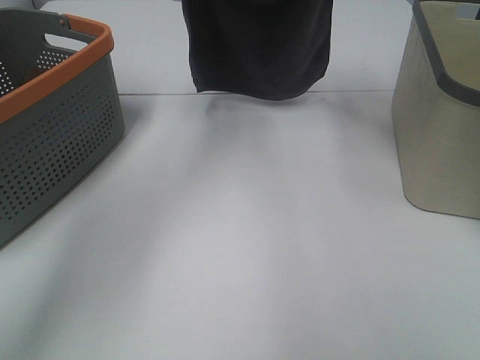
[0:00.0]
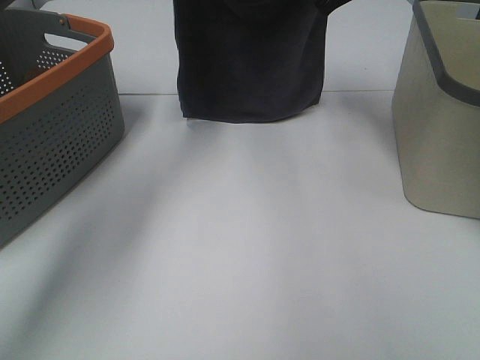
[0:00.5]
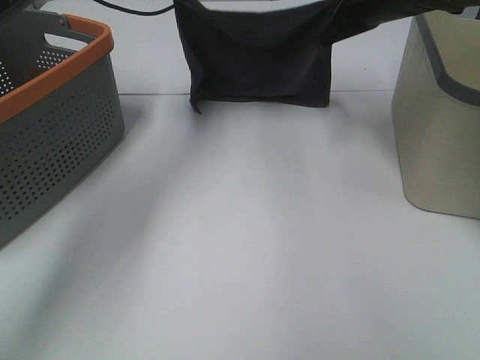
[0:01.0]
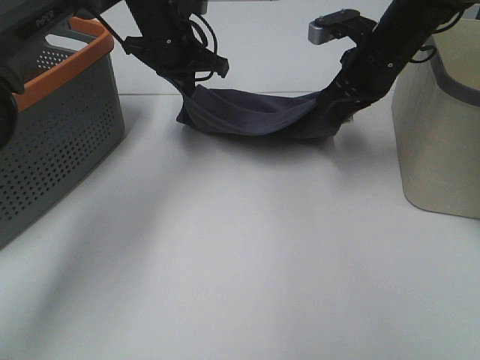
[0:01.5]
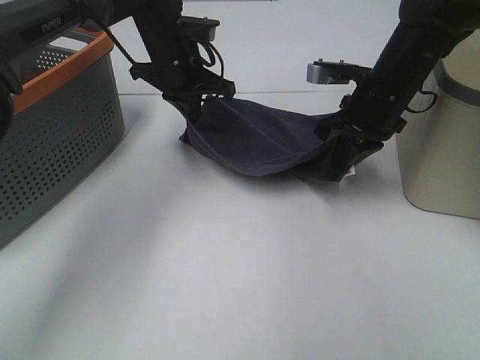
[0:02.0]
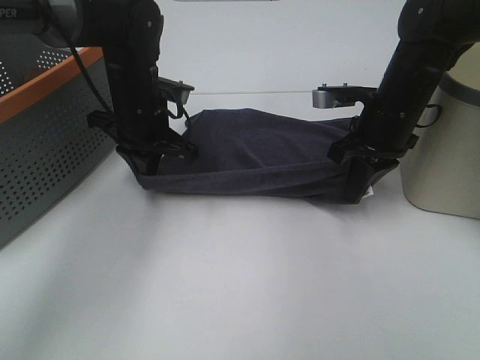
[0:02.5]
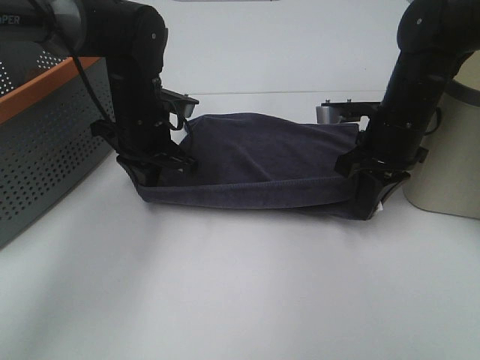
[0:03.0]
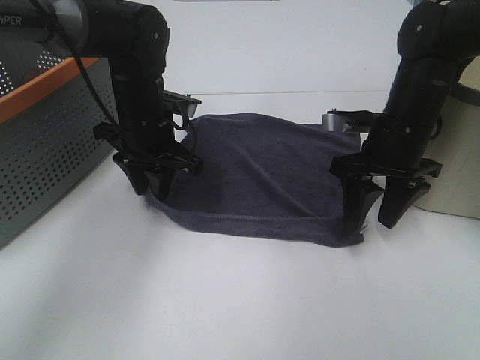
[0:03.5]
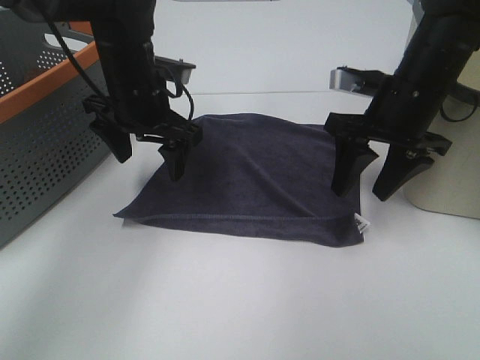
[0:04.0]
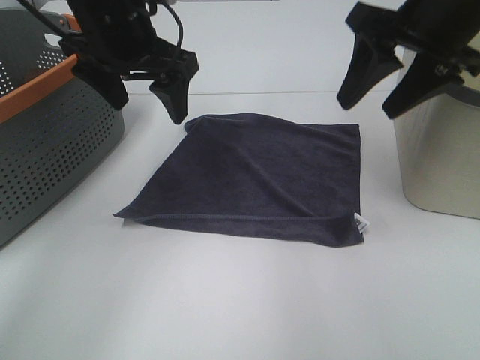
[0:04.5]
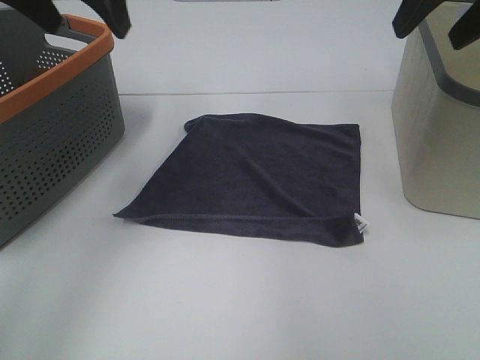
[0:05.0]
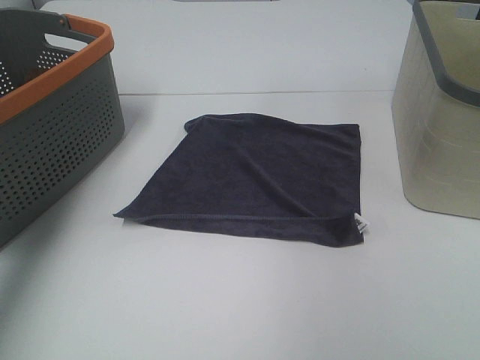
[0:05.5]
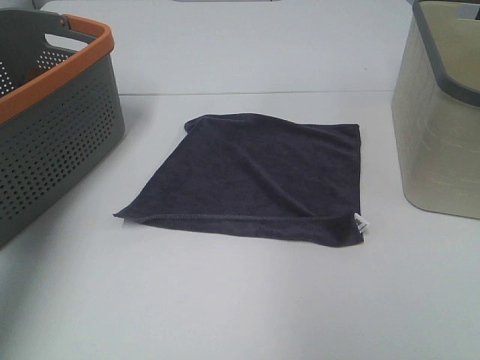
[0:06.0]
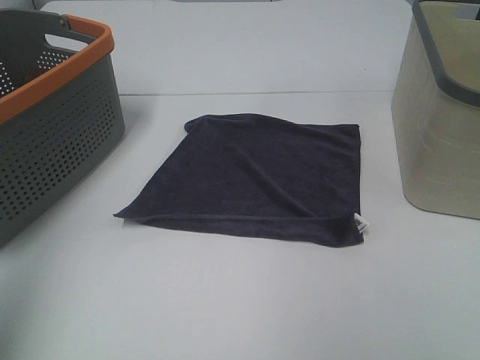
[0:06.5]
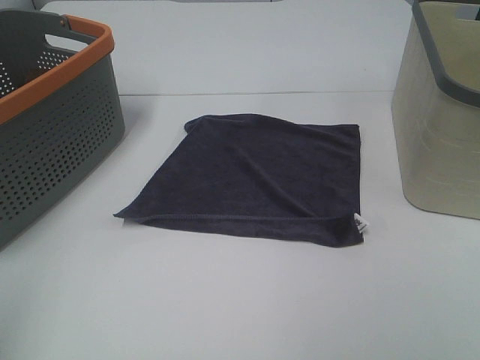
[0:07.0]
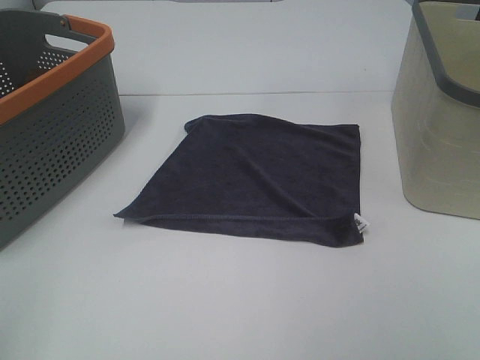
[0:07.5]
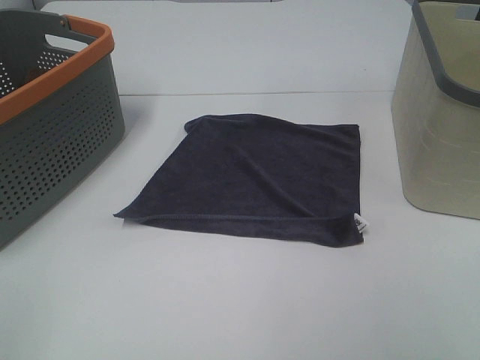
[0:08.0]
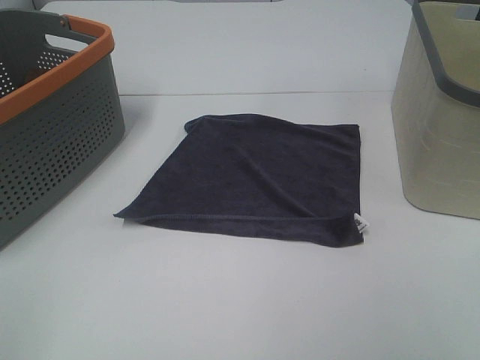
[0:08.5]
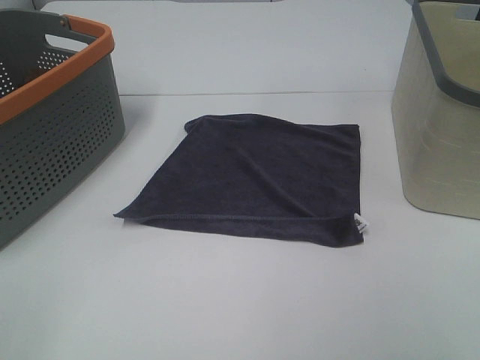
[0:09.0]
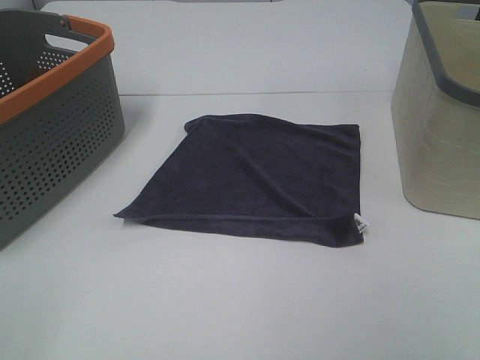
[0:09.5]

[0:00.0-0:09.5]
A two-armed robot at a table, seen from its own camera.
Task of the whole recording: Remove the towel and place it.
0:00.0 to 0:02.0: The right gripper shifts approximately 15 cm downward and backward, while the left gripper heads downward, covering approximately 15 cm.
0:02.0 to 0:04.0: The right gripper moves about 5 cm, and opens up. Meanwhile the left gripper goes roughly 10 cm backward, and opens up.
0:04.0 to 0:05.5: The right gripper is displaced upward and to the right by roughly 20 cm, while the left gripper shifts some 30 cm to the left and upward.
0:05.5 to 0:07.5: The left gripper heads backward, covering approximately 35 cm.

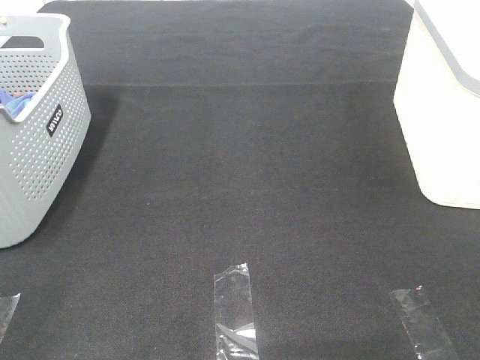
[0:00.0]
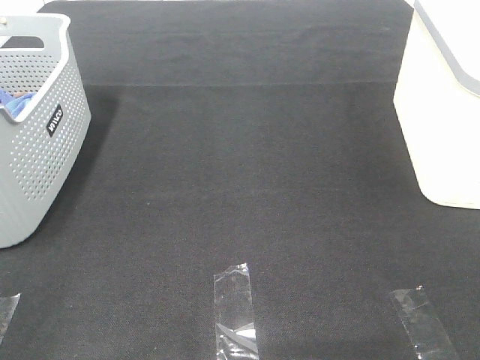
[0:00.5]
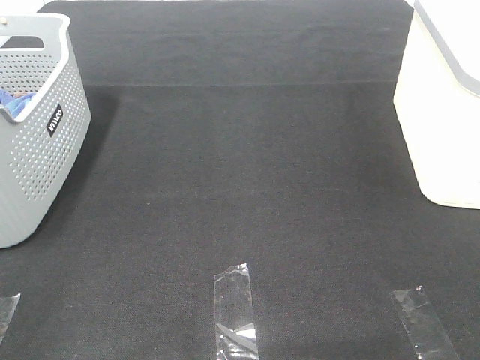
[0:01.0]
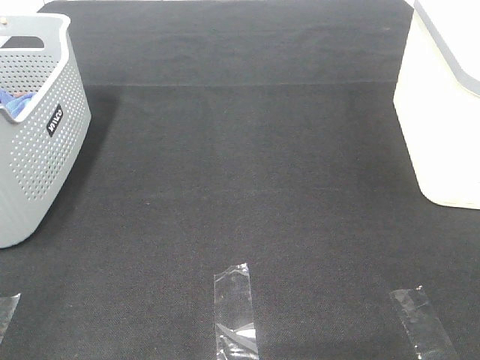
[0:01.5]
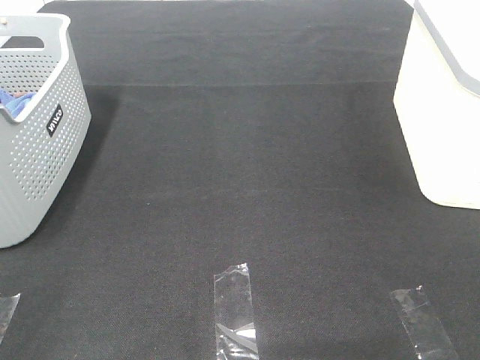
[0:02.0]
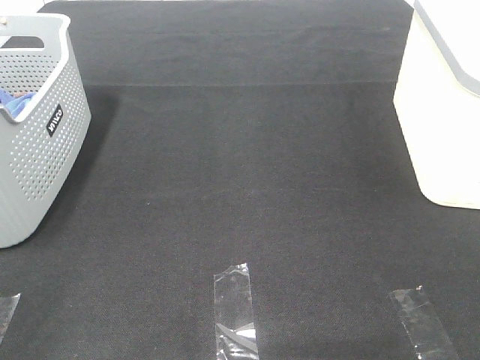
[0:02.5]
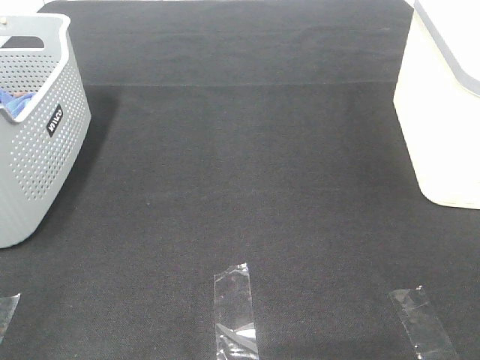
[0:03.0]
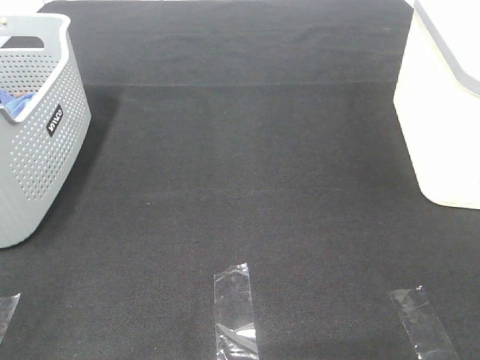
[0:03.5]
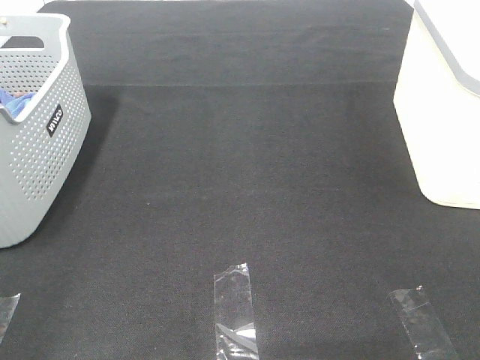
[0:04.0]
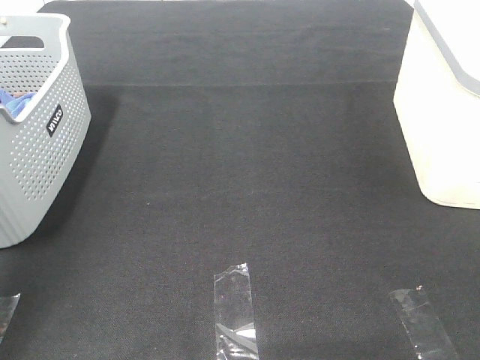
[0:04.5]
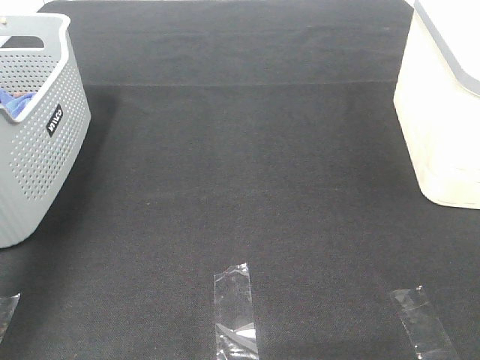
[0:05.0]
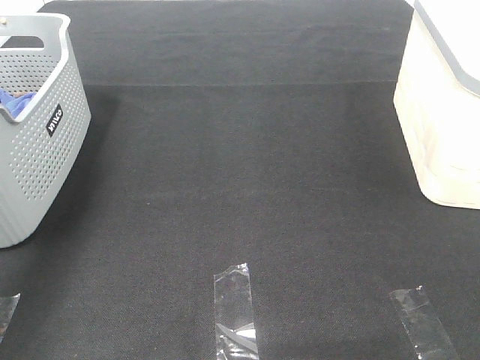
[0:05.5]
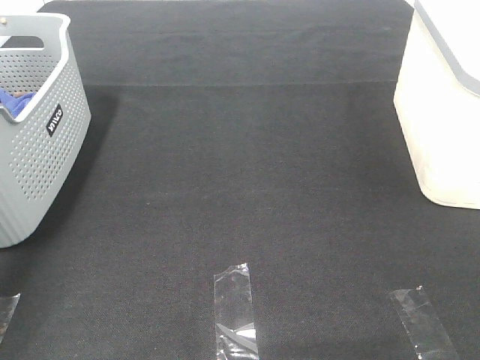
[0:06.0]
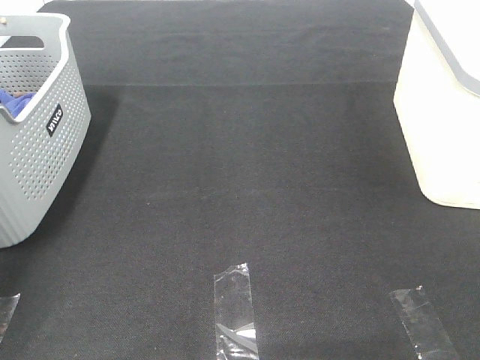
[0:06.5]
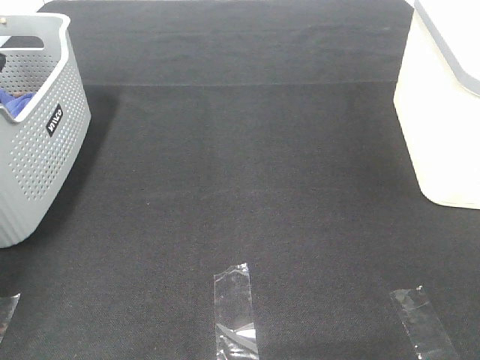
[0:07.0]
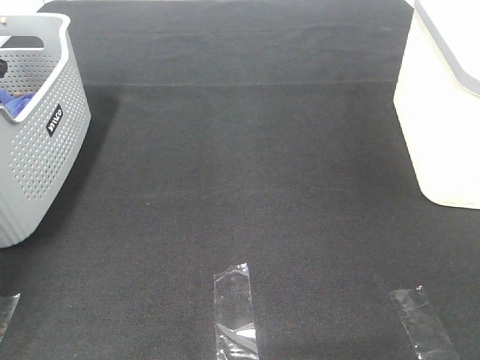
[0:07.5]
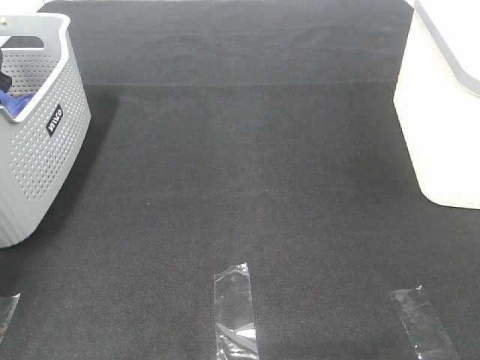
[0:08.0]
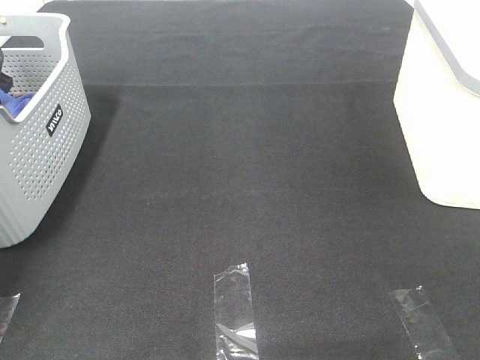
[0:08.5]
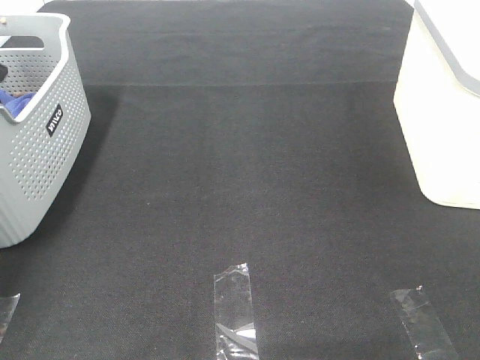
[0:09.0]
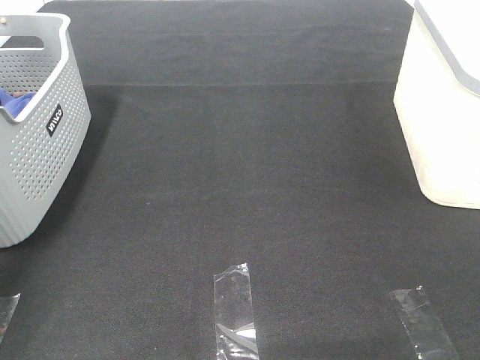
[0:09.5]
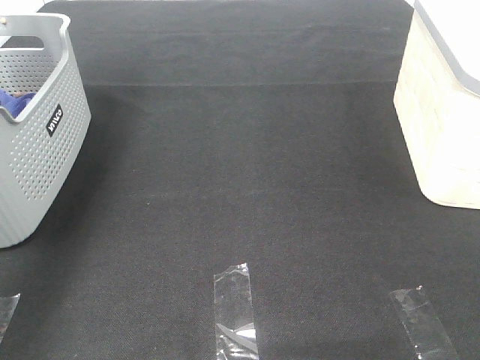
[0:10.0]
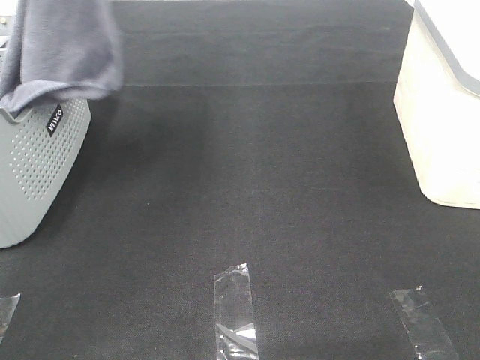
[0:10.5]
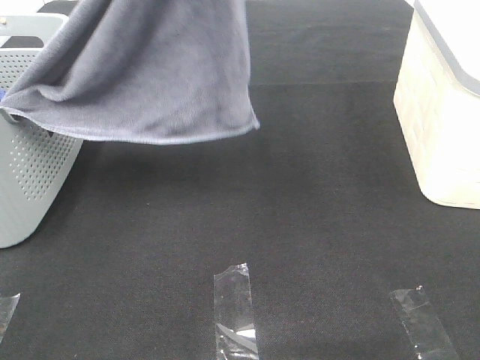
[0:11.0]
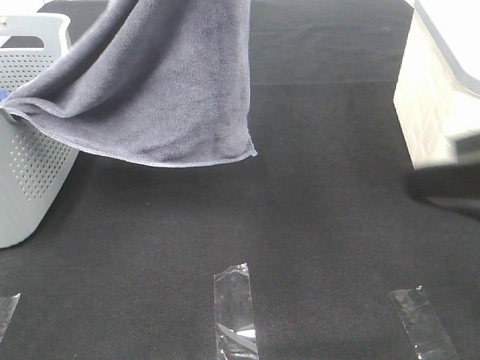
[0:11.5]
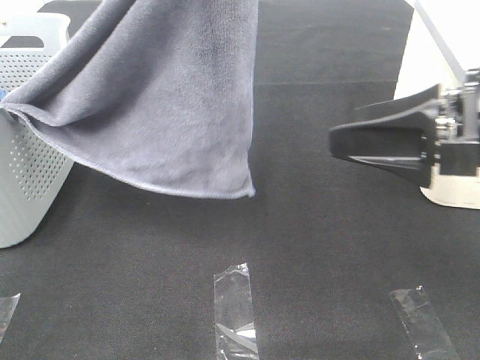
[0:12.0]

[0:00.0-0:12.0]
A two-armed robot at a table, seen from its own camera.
Task of the whole recording: Remove the towel and place it.
0:00.0 to 0:02.0: Neither gripper changes place.
0:04.0 to 0:06.0: The left gripper goes approximately 40 cm forward.
0:08.0 to 0:10.0: The left gripper shifts about 25 cm upward, and closes.
0:10.0 to 0:12.0: The right gripper travels forward by some 20 cm; the left gripper goes roughly 30 cm to the right and backward.

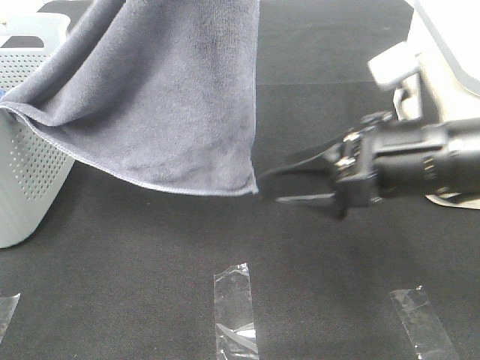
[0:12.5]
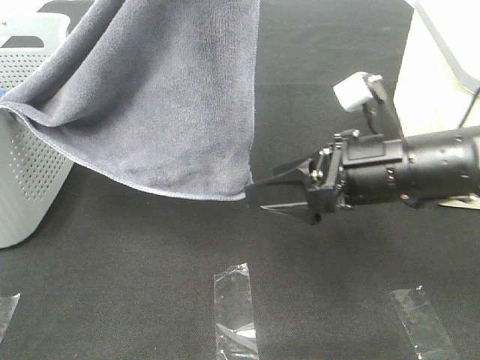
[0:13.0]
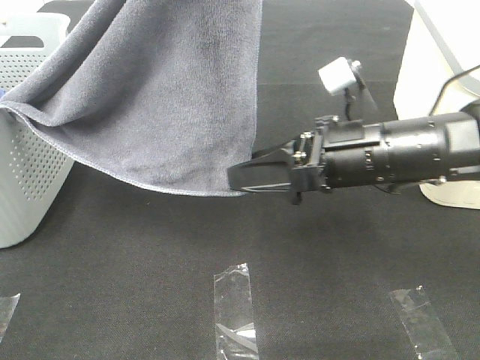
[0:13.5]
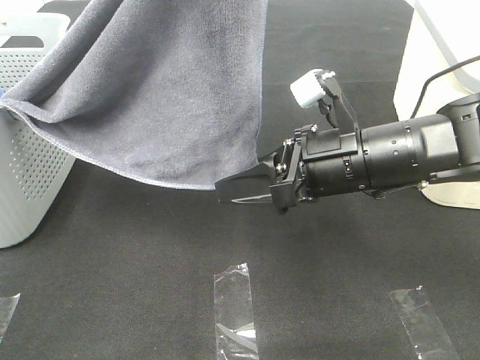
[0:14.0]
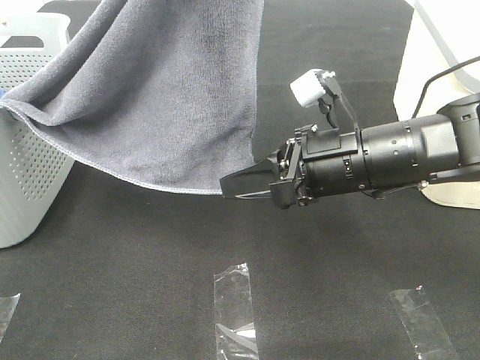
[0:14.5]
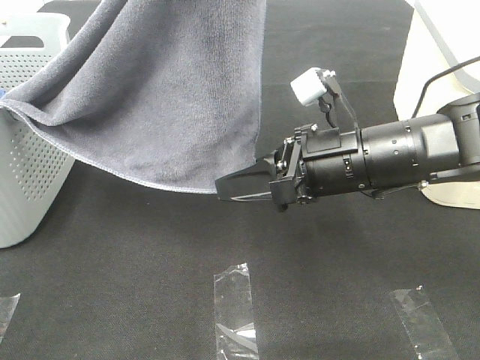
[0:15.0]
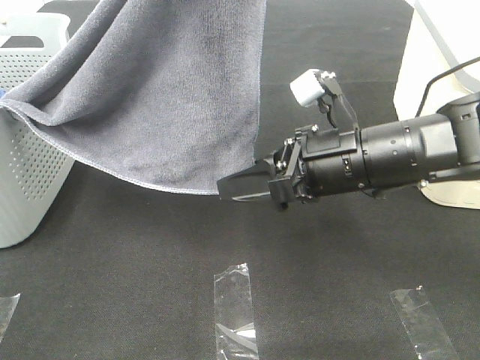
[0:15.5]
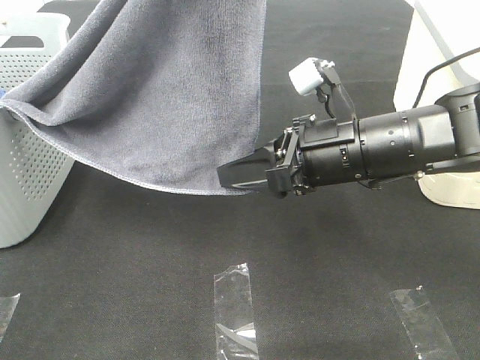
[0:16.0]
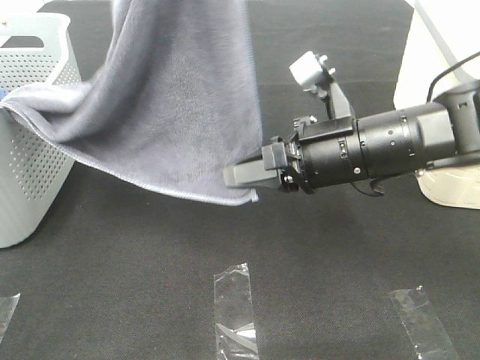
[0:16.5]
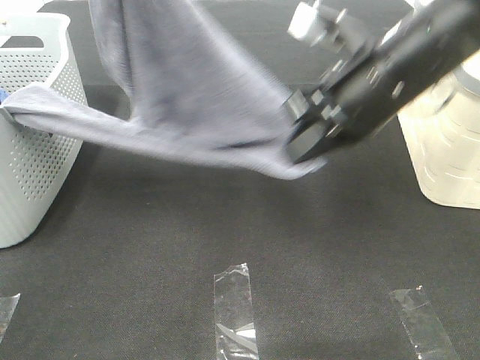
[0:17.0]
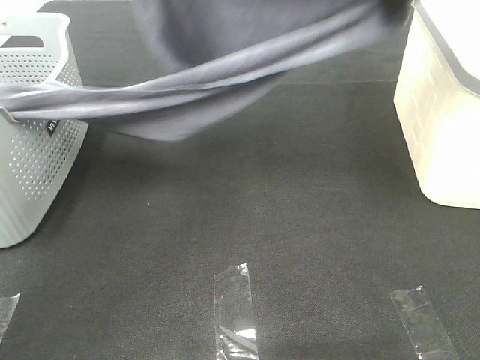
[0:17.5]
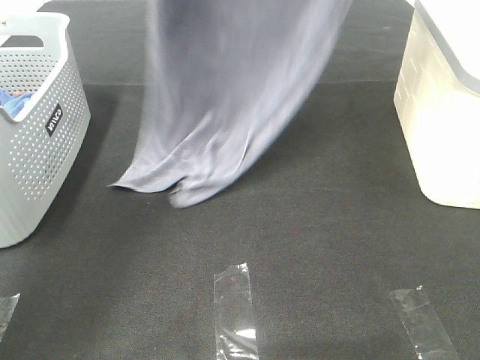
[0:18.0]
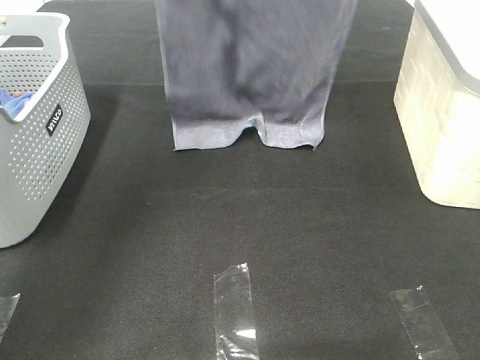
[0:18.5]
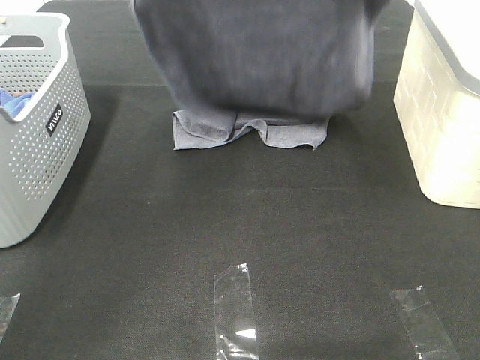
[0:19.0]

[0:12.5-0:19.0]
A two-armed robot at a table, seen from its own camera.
Task of the whole recording: Remove the towel and place it.
Step, 0:12.5 to 0:14.5: Right hand: grab a corner of the grey towel and straighten it.
0:12.5 to 0:14.5: The right gripper moves approximately 5 cm, and closes up.
0:14.5 to 0:17.0: The right gripper goes approximately 10 cm upward, and closes its fingers. The left gripper goes some 10 cm forward.
0:17.0 to 0:19.0: The right gripper heads upward and forward, covering roughly 15 cm. The left gripper heads forward and downward, covering about 15 cm.
